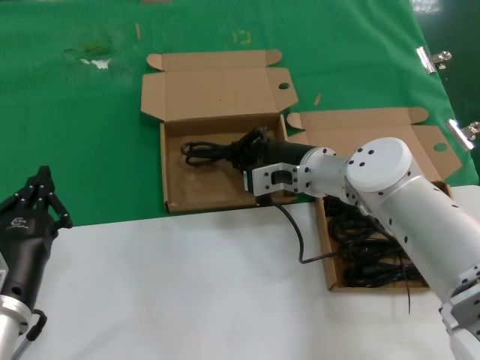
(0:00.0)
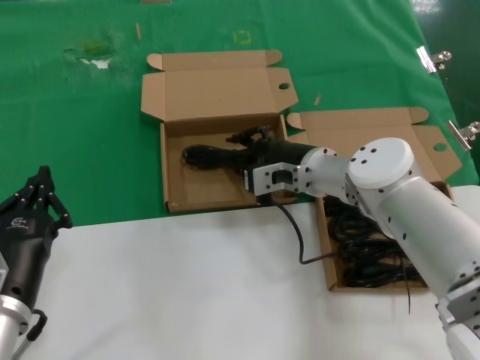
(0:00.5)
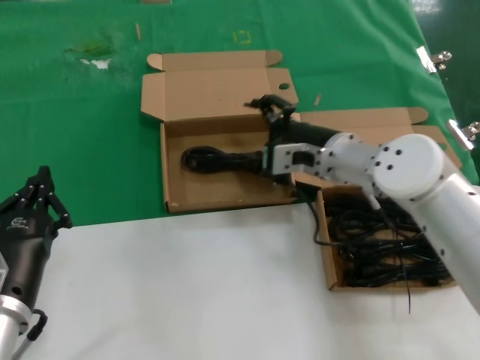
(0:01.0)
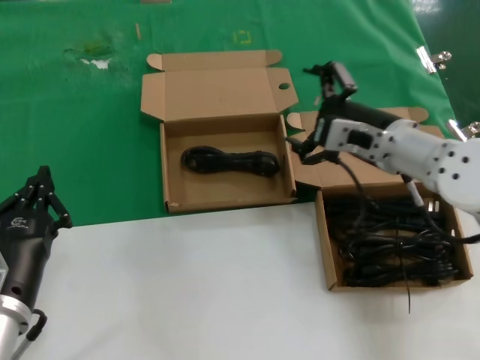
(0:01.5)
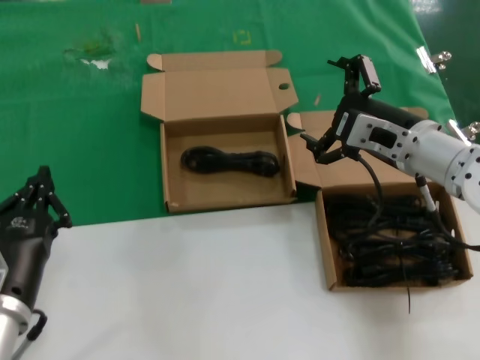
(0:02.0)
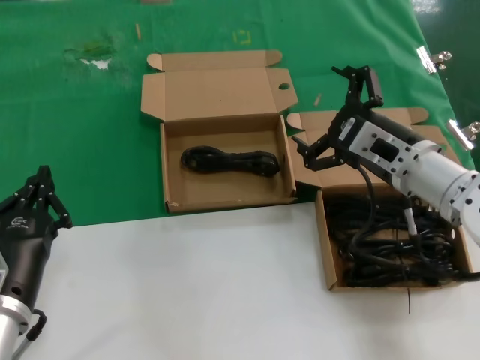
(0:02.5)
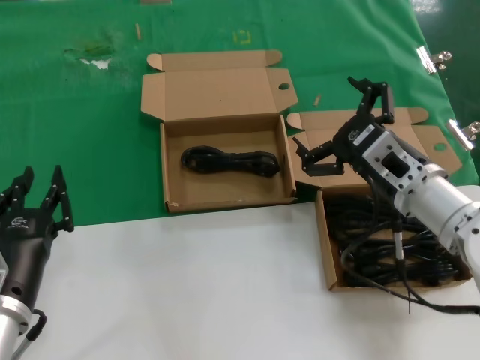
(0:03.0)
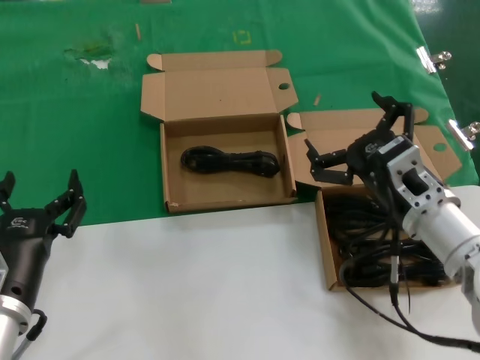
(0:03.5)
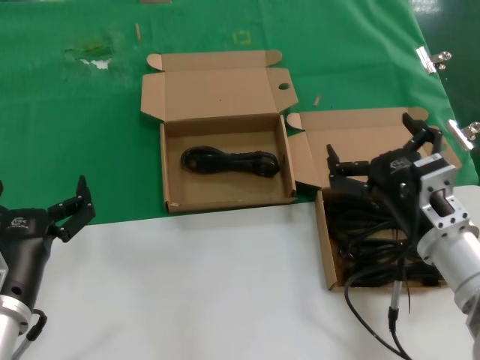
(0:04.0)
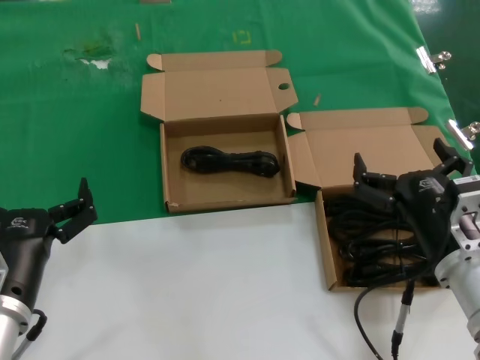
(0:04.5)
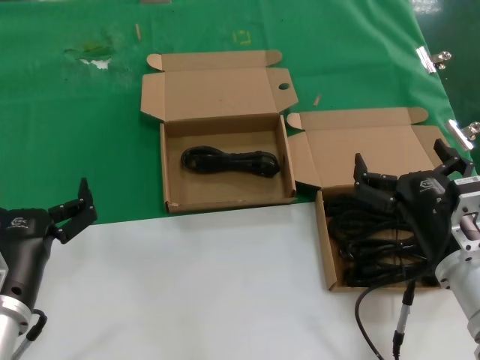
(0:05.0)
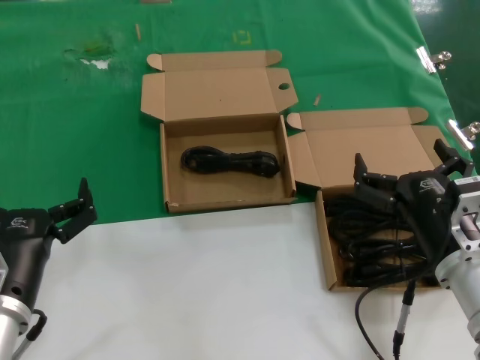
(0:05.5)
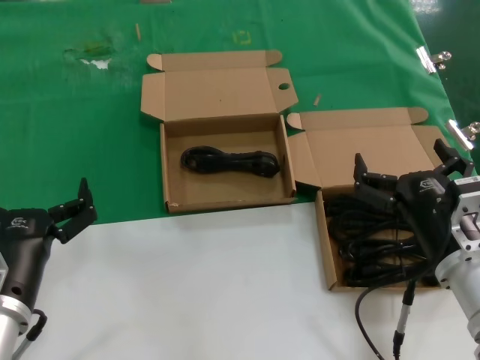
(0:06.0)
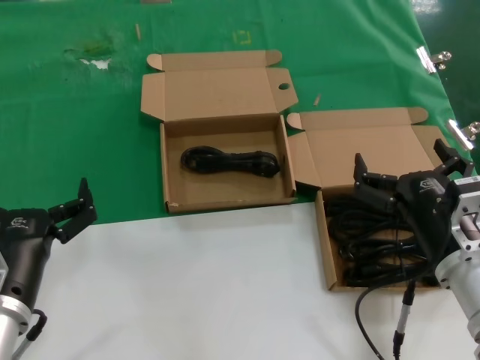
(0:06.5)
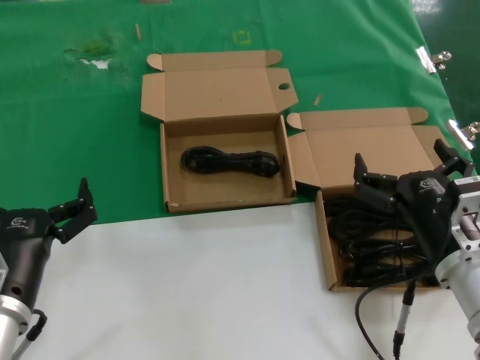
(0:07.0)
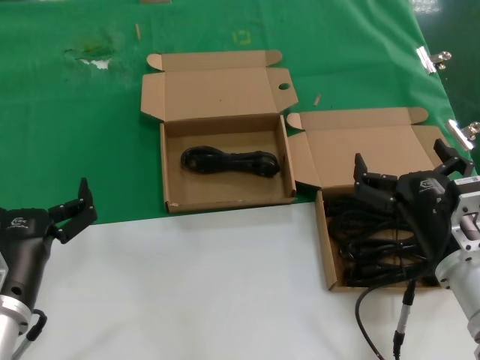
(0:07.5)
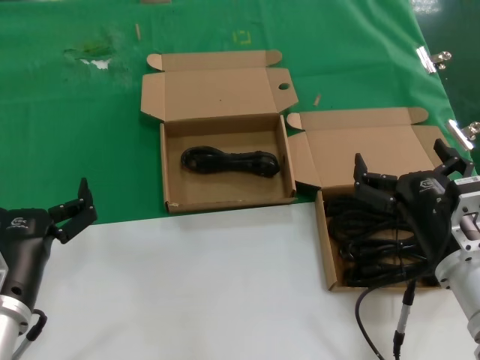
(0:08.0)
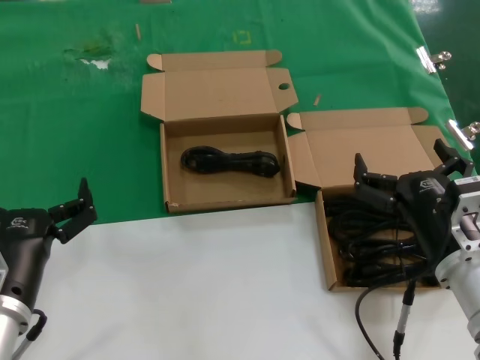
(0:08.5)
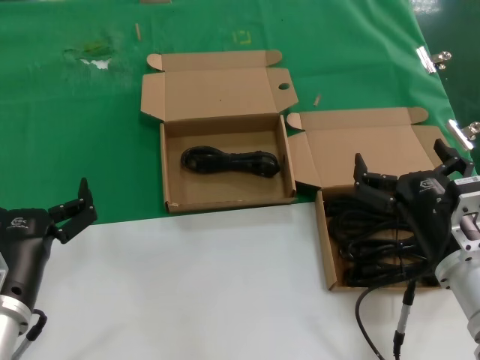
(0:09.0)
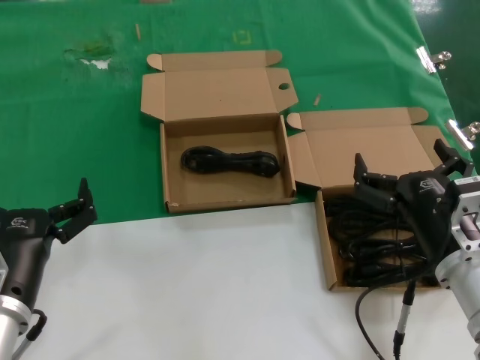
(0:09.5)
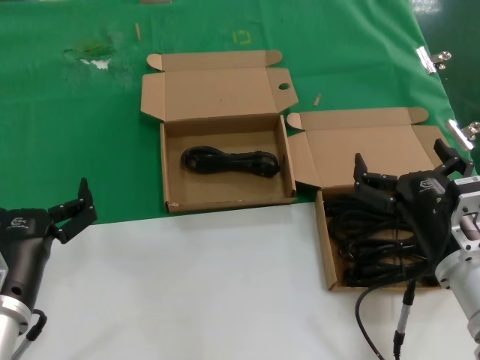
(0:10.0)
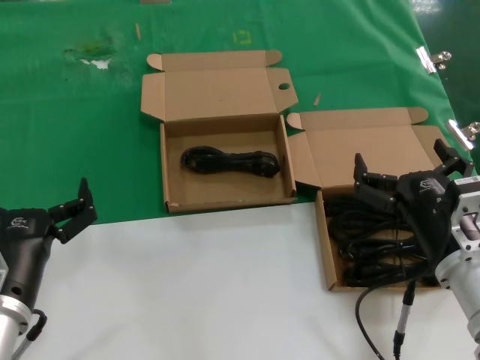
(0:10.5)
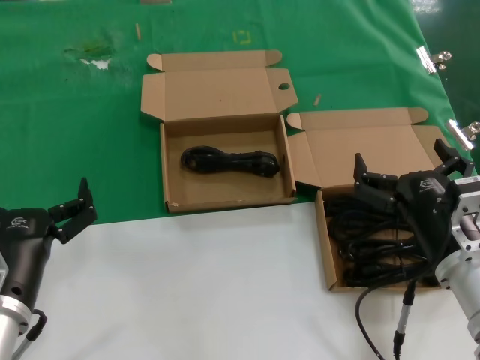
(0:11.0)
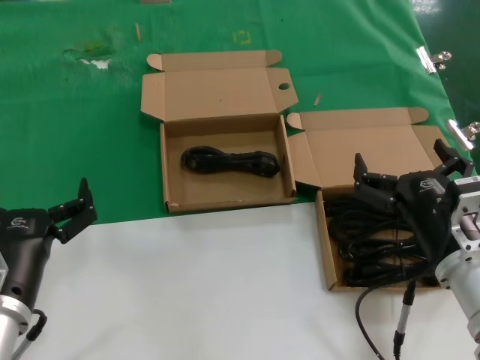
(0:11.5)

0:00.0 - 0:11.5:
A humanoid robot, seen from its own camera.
Task of the whole recording: take the parts from the box containing them and put them into an empty box.
0:00.0 - 0:02.0: The right hand goes some 15 cm to the right, backward and upward.
0:02.0 - 0:04.0: The right hand is displaced backward and downward by about 15 cm.
0:04.0 - 0:06.0: The hands move only a little.
0:06.0 - 0:11.5: The two hands keep their place.

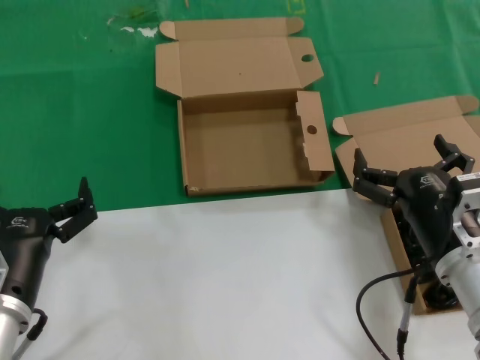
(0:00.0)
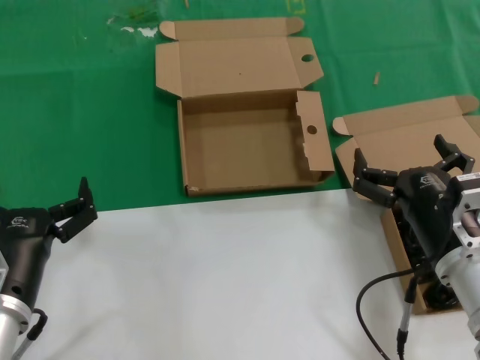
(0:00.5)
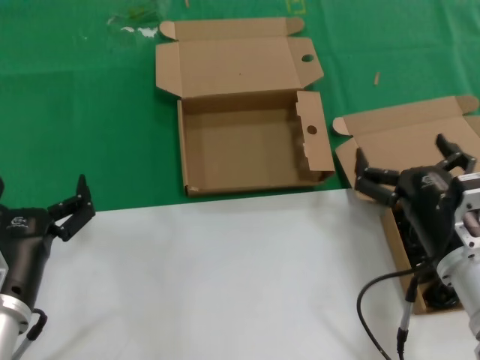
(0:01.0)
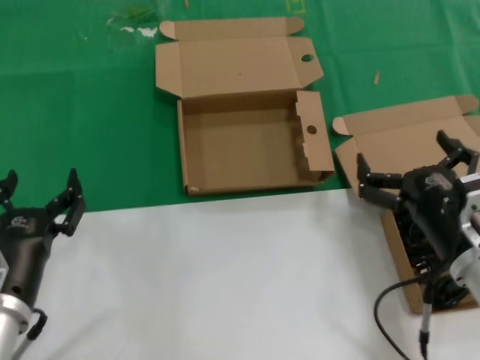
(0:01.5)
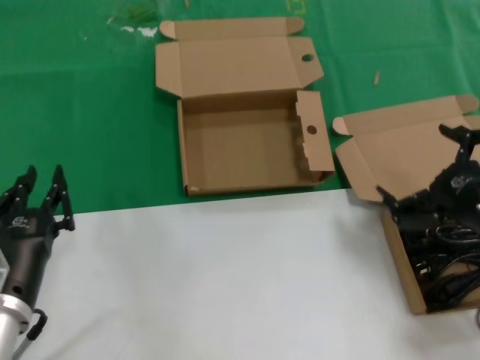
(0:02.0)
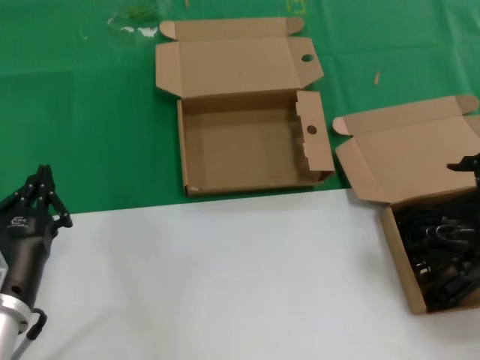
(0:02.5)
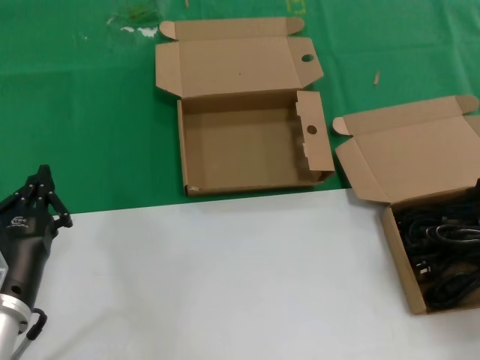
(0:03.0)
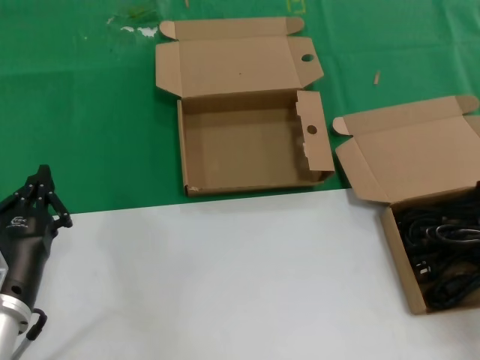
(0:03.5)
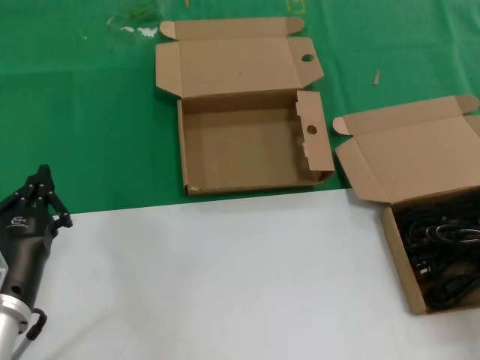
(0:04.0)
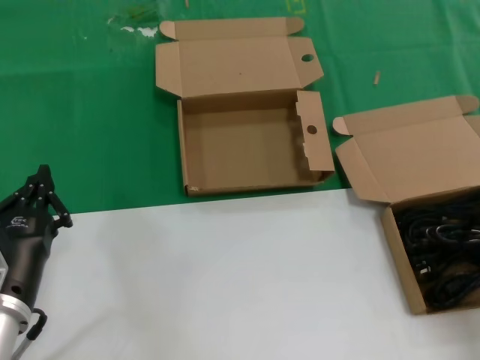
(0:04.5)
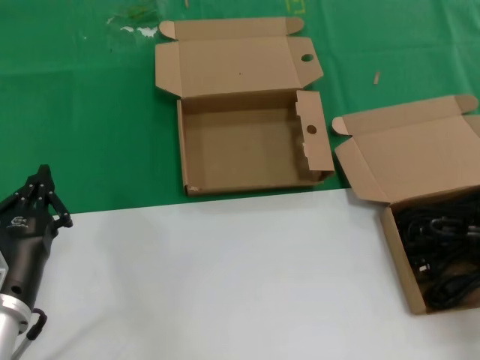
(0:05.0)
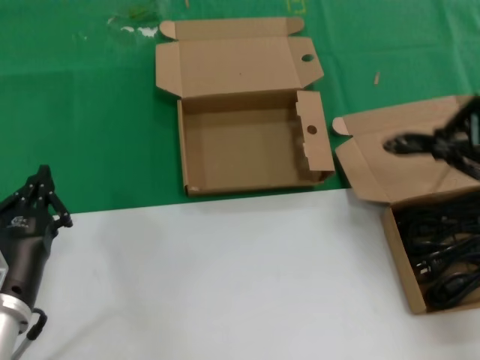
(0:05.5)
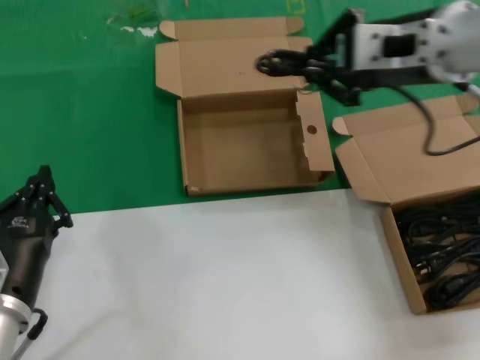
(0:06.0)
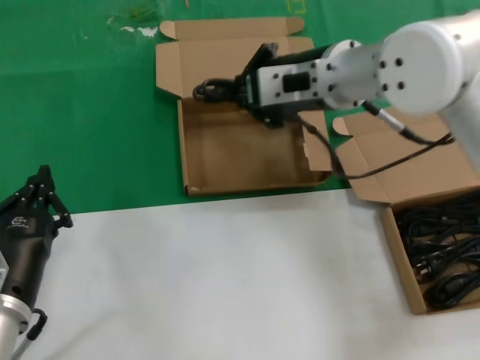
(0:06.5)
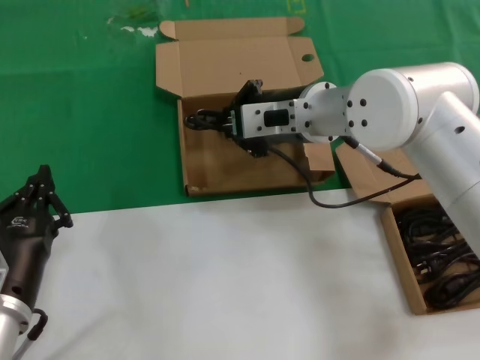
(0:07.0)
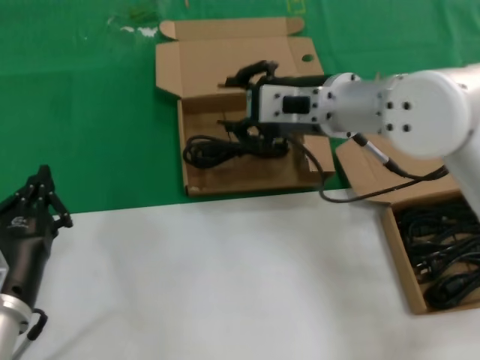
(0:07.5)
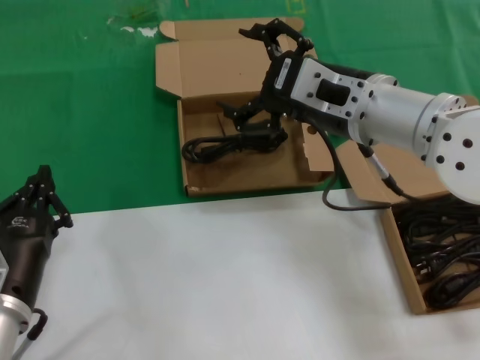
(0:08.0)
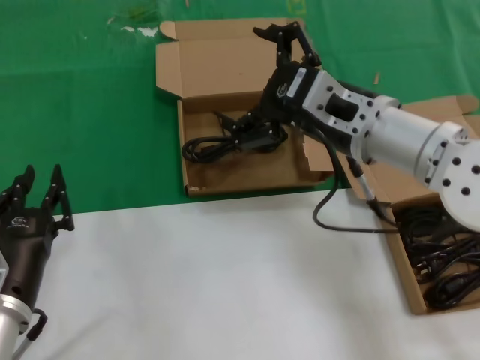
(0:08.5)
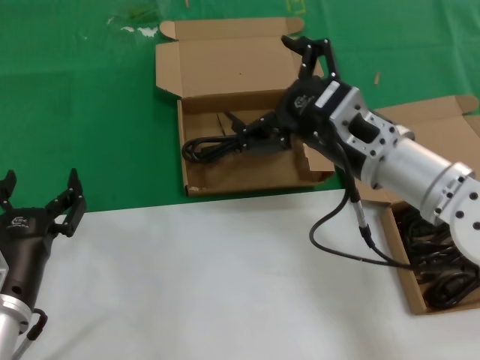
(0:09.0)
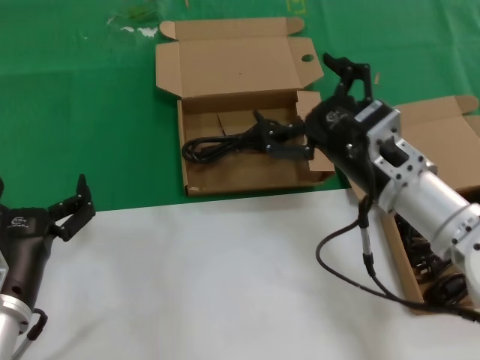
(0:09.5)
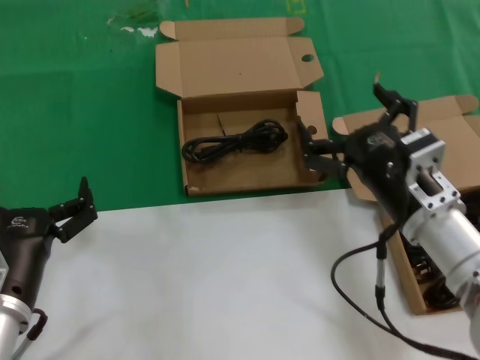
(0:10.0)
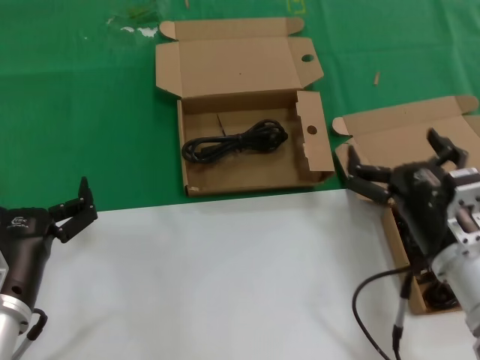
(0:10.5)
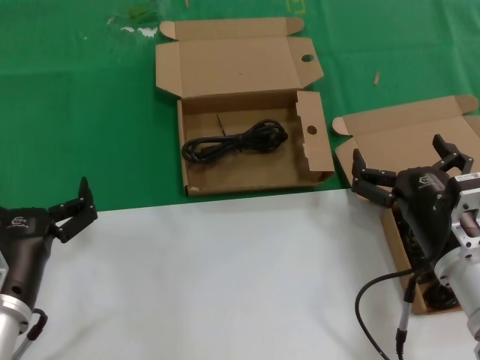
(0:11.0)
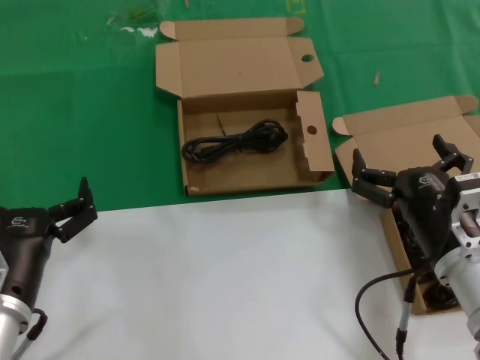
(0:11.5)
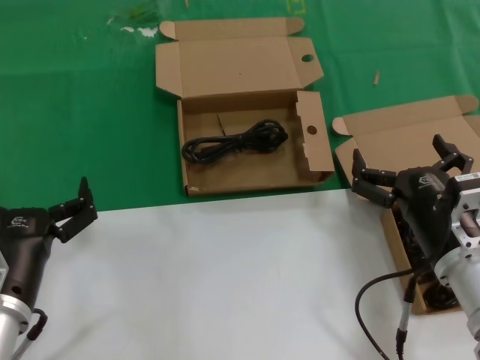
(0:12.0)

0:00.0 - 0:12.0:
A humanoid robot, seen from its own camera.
Task of the whole recording: take the parts from the box containing them and put them into an empty box.
Step, 0:00.0 - 0:04.5: Grasp the data cable.
Step, 0:05.0 - 0:07.0: Place the data cable in the another box.
0:00.0 - 0:02.0: The right hand heads to the right and upward, covering approximately 10 cm.
0:02.0 - 0:04.0: The right hand moves upward and to the right, approximately 10 cm.
0:04.0 - 0:06.0: The right hand shifts some 25 cm to the left, upward and forward.
0:06.0 - 0:08.0: The right hand travels downward and to the left by approximately 10 cm.
0:08.0 - 0:10.0: The right hand goes some 15 cm downward and backward.
0:10.0 - 0:12.0: The right hand changes place by approximately 5 cm.

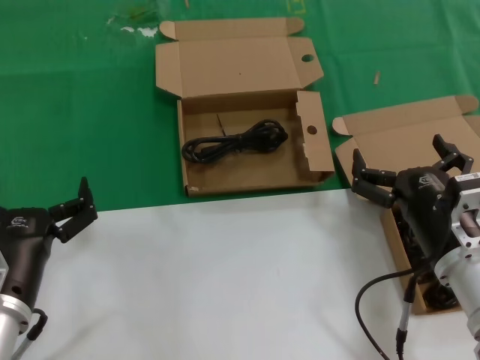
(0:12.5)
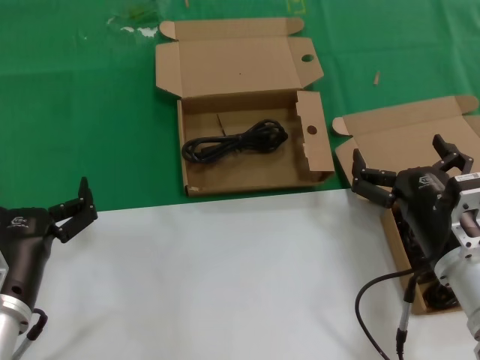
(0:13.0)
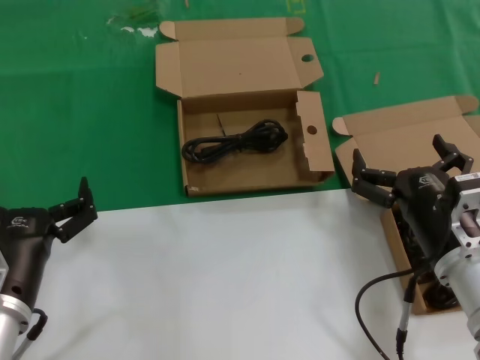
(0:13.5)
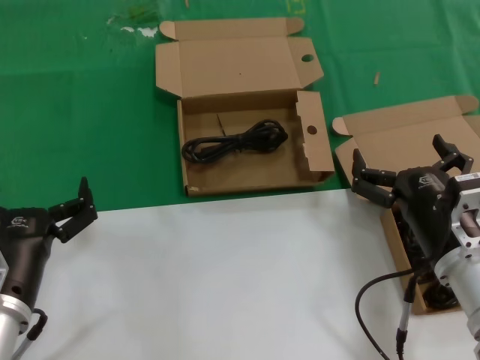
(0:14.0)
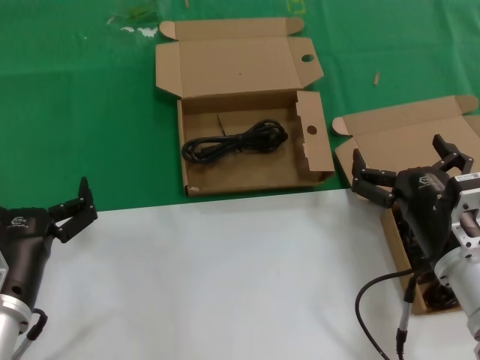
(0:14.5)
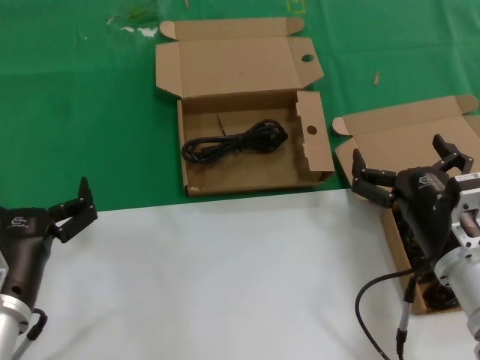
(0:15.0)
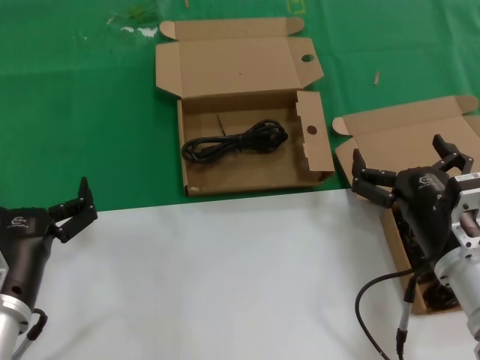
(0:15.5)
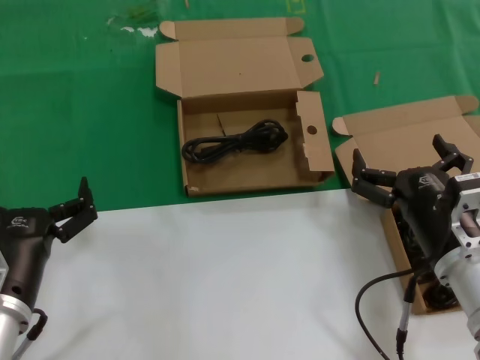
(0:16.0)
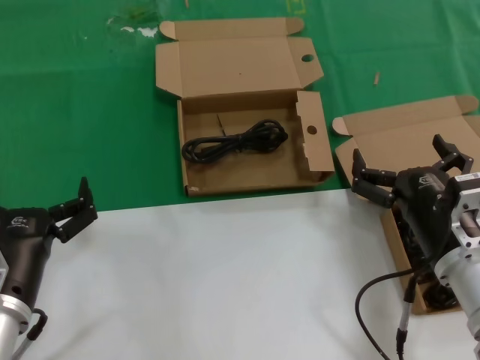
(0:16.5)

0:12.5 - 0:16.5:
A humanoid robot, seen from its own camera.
Task of the whole recording: take the parts from the box containing them and put them into an empty box.
0:12.5 - 0:16.5: The two hands keep their place.
